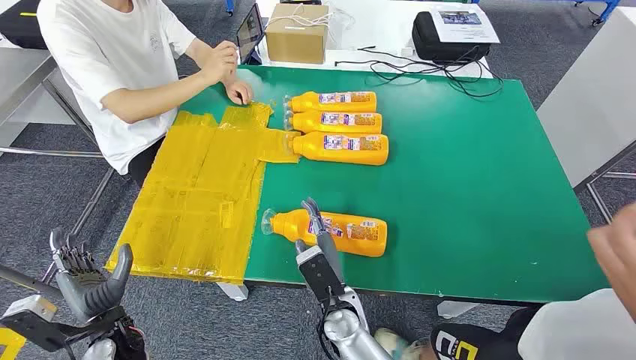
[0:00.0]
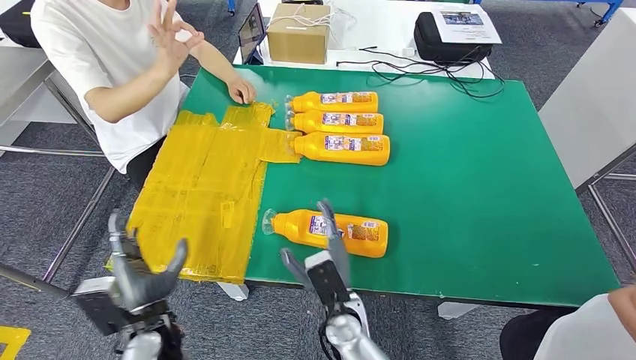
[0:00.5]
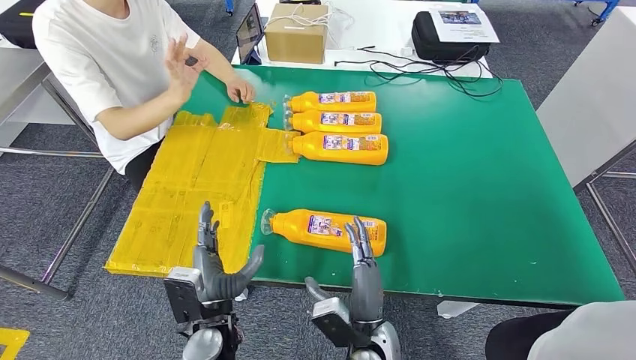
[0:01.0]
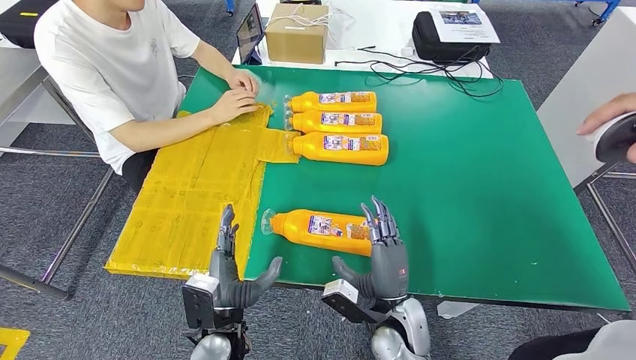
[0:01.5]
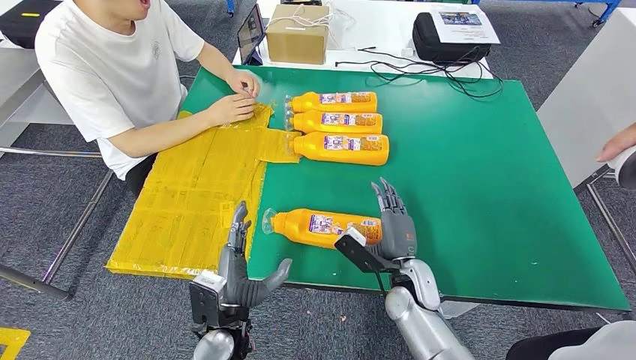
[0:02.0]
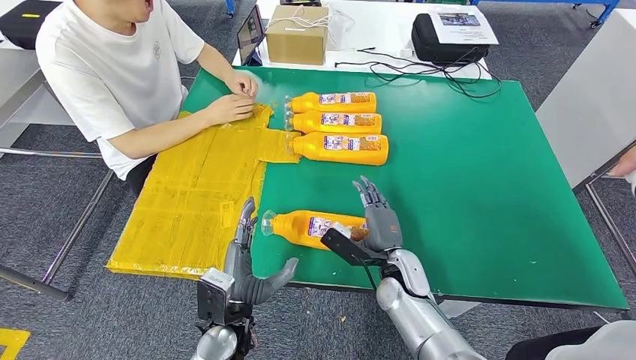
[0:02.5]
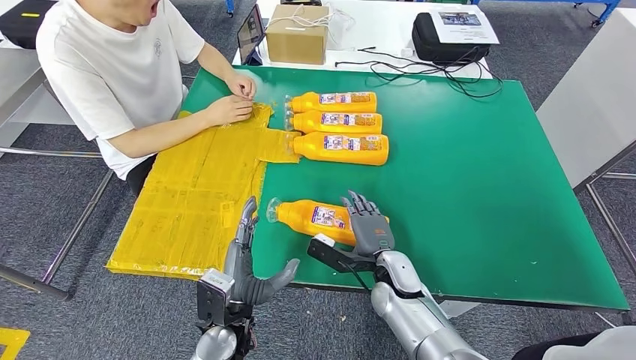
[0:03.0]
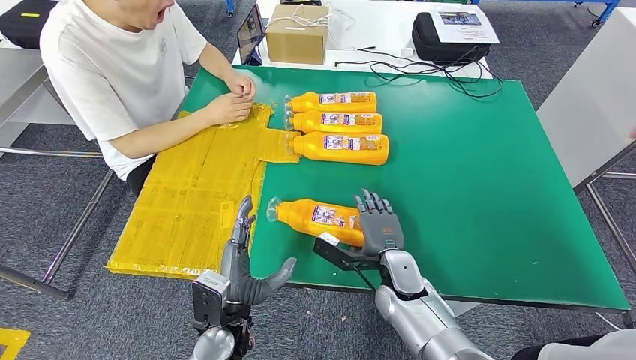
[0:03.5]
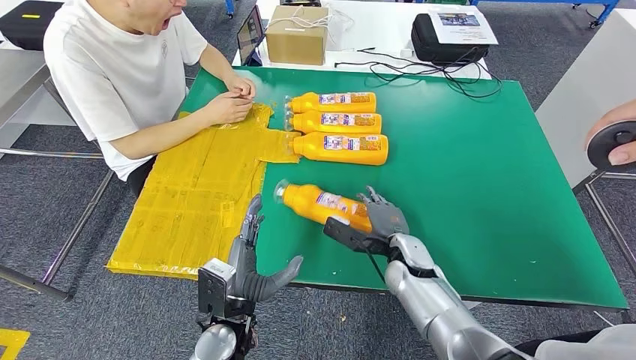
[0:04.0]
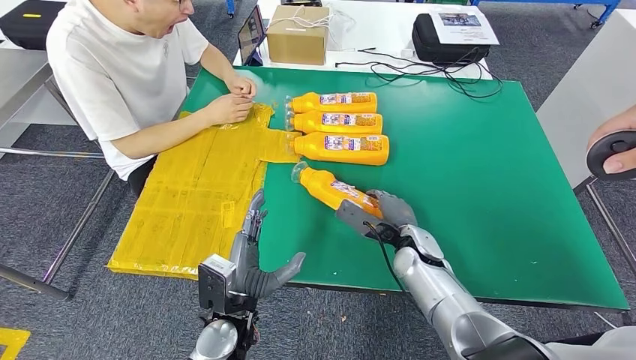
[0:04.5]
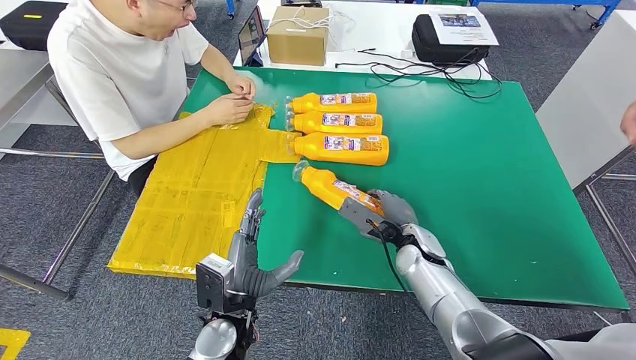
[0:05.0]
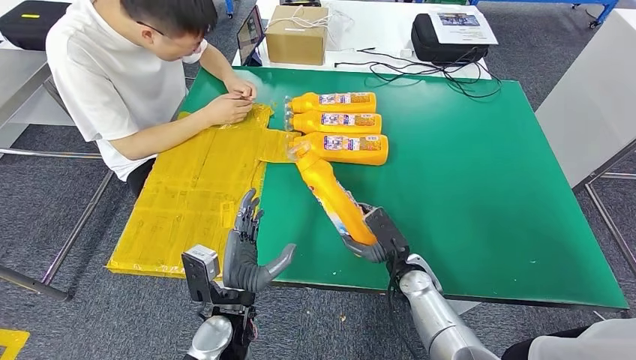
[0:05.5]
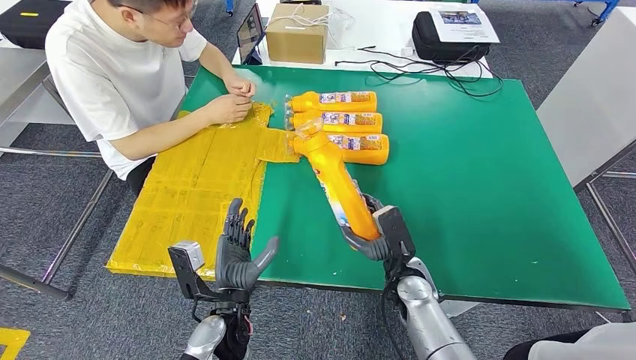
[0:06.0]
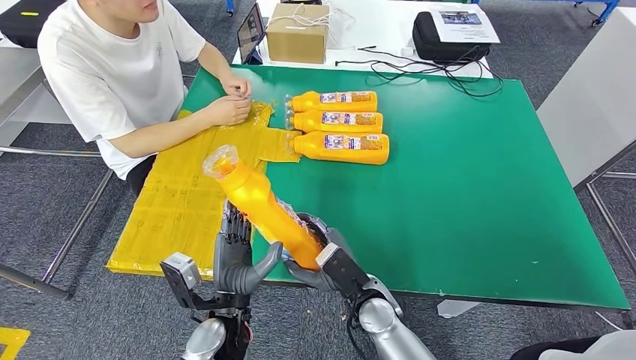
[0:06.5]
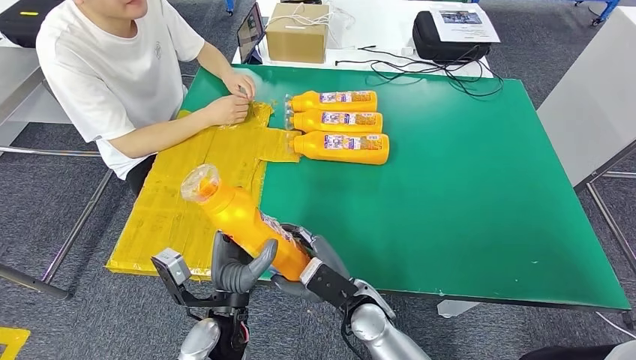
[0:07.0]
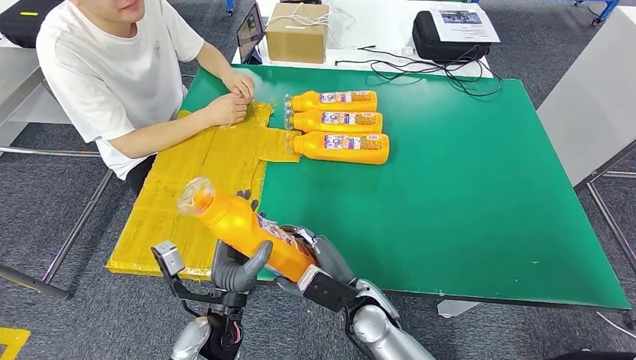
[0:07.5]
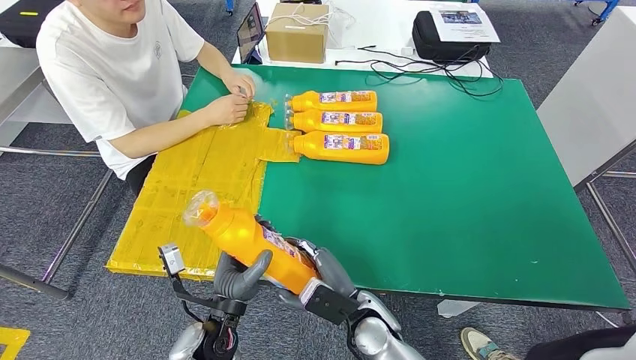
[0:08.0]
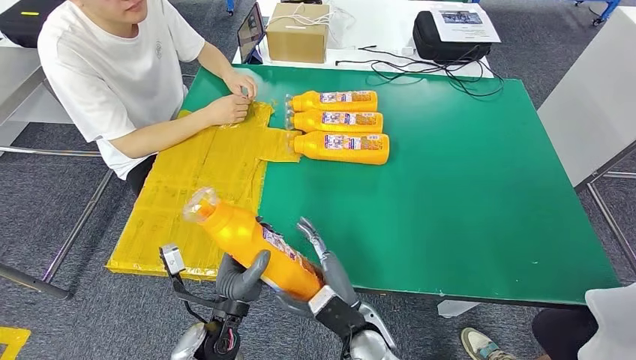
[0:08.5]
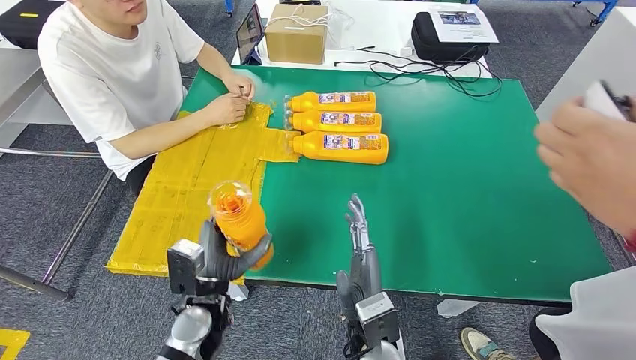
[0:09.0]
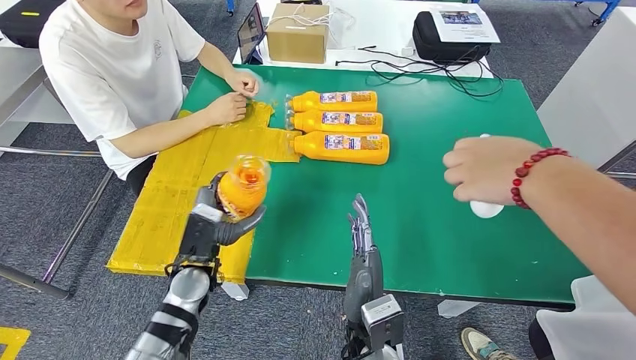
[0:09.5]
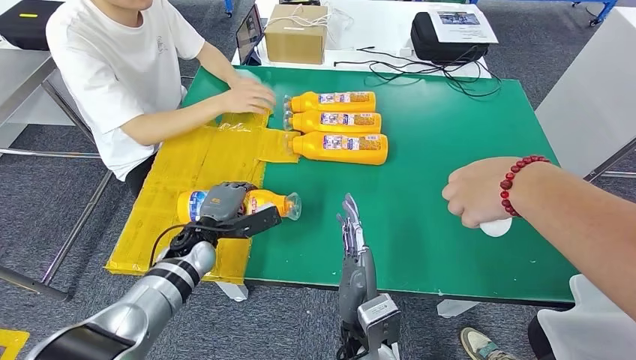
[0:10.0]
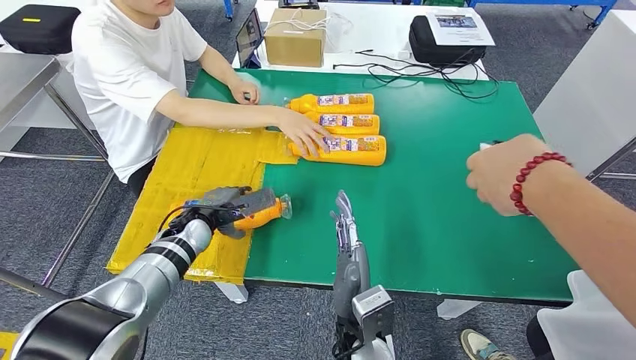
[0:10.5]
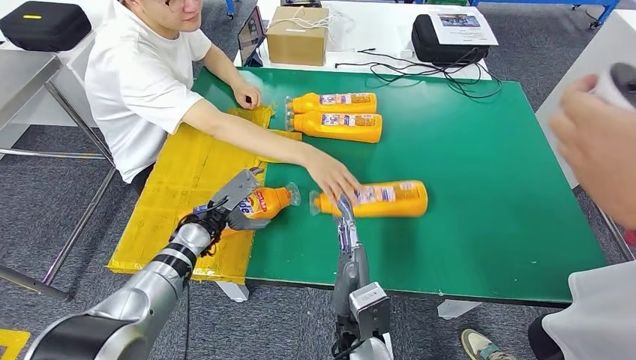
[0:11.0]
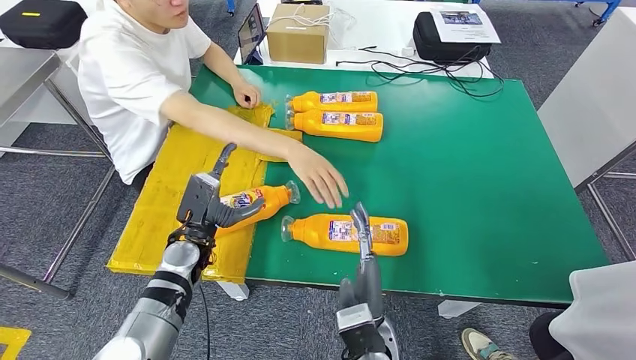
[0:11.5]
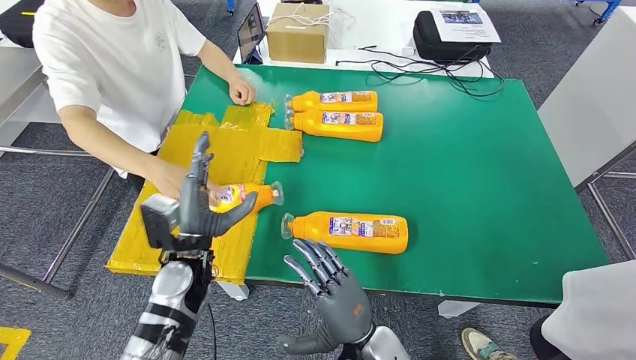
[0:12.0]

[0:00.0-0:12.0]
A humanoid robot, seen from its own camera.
Step, 0:00.0 to 0:07.0: Take the fast-moving consumer goods bottle from the table.
0:06.0 to 0:08.0: The right hand moves to the left and backward, roughly 10 cm.

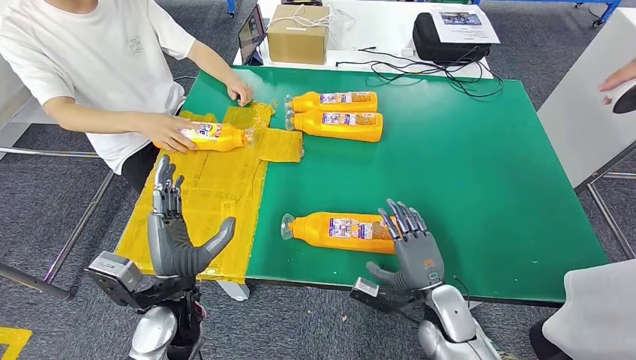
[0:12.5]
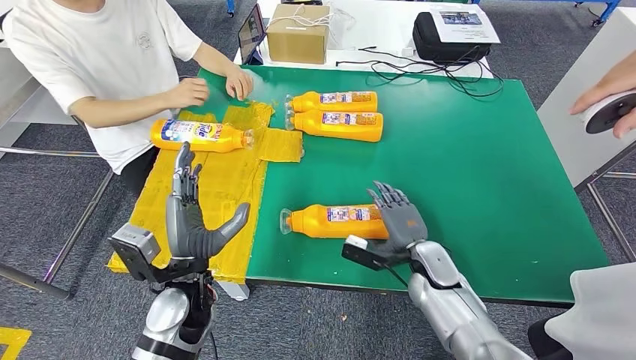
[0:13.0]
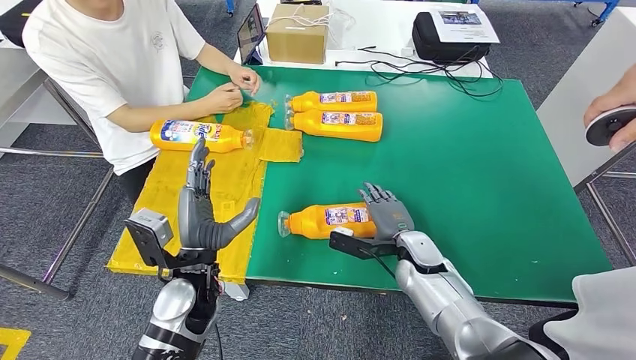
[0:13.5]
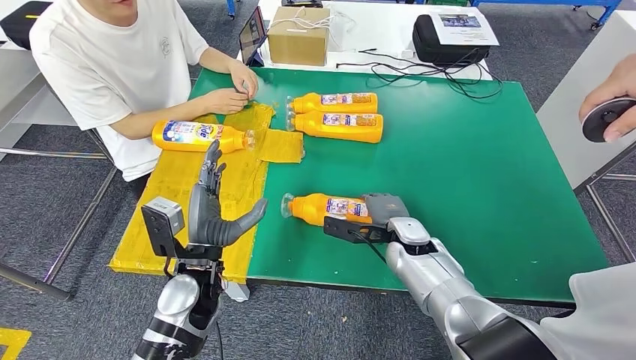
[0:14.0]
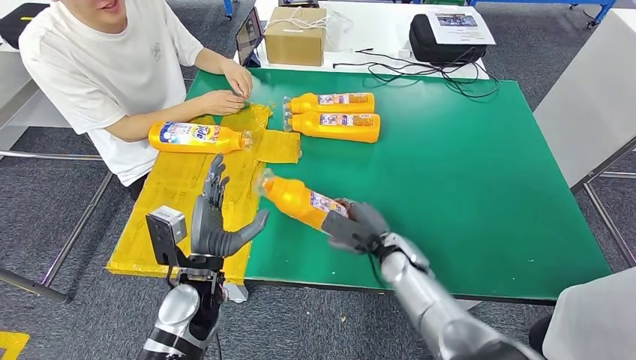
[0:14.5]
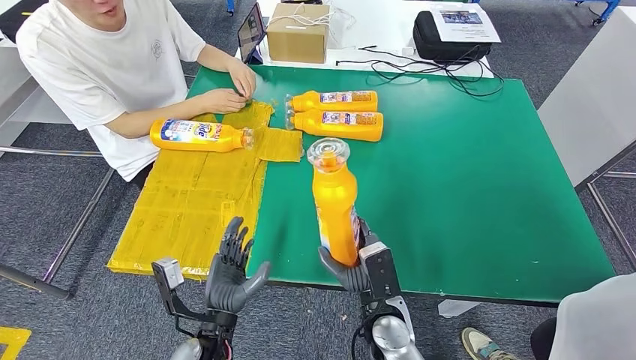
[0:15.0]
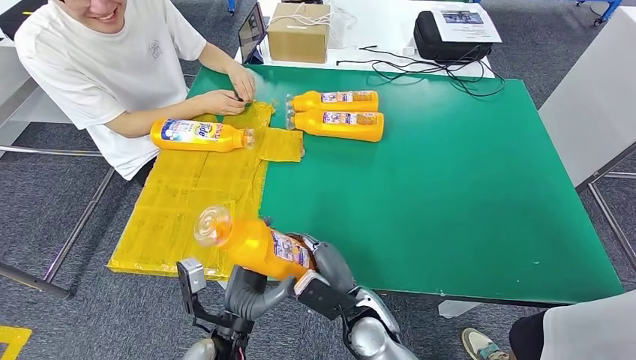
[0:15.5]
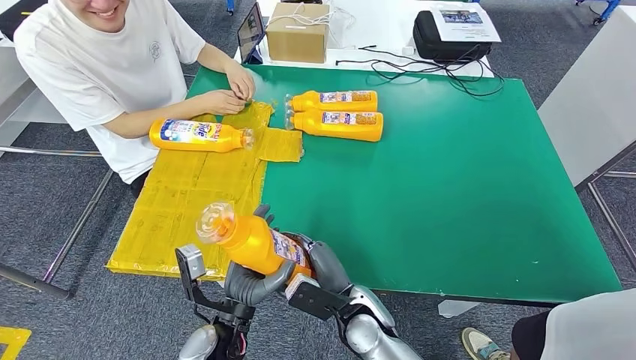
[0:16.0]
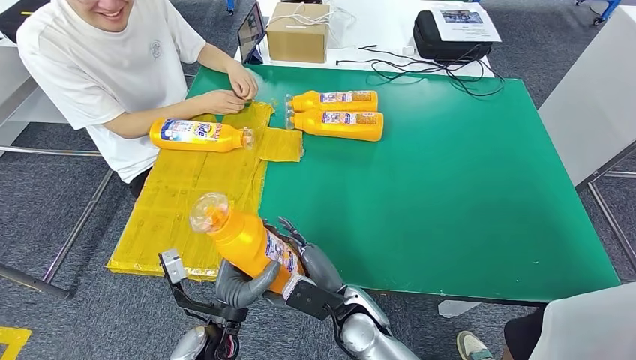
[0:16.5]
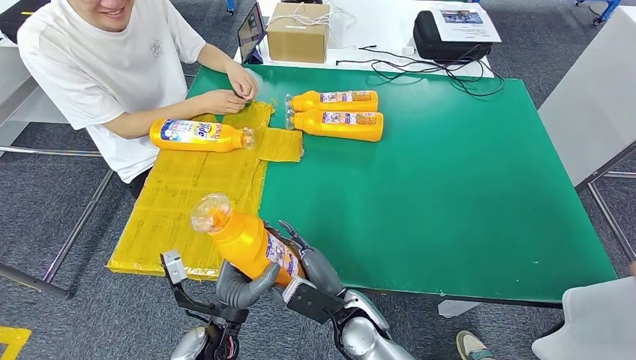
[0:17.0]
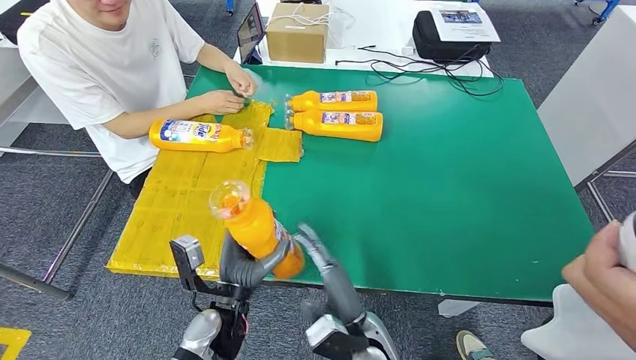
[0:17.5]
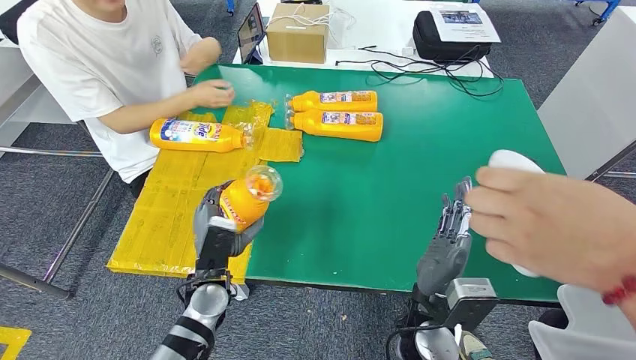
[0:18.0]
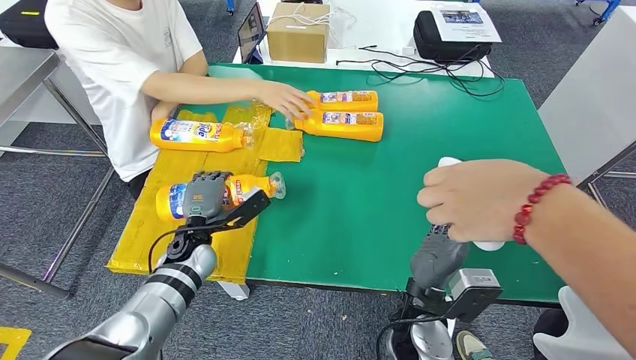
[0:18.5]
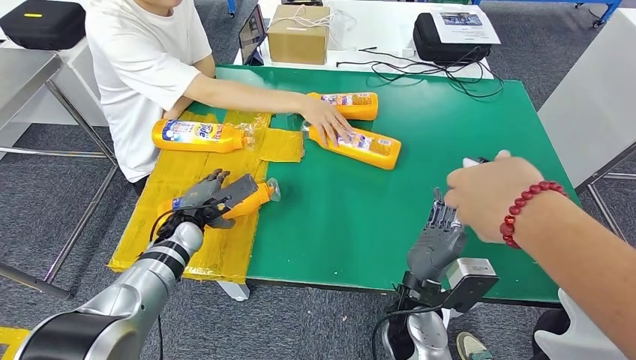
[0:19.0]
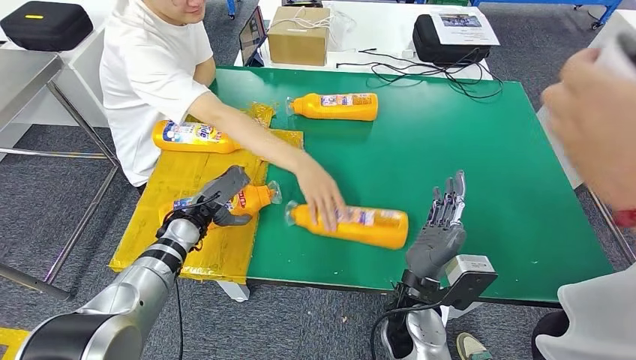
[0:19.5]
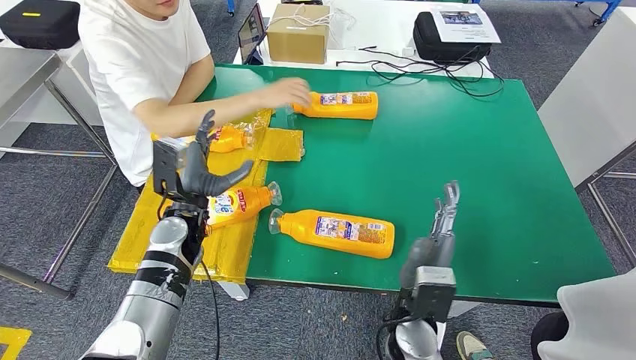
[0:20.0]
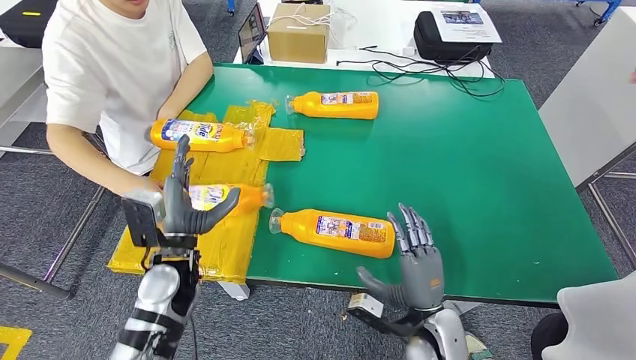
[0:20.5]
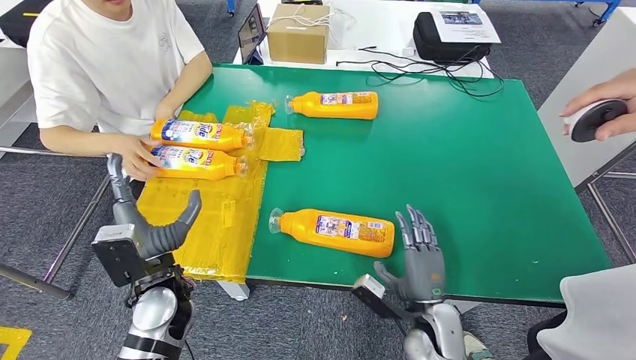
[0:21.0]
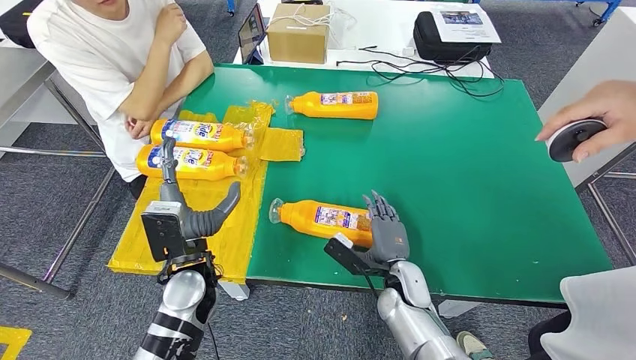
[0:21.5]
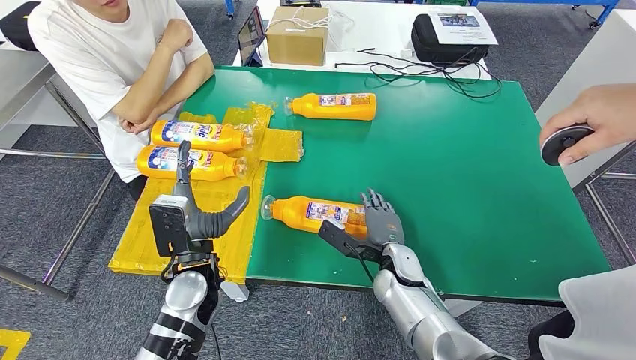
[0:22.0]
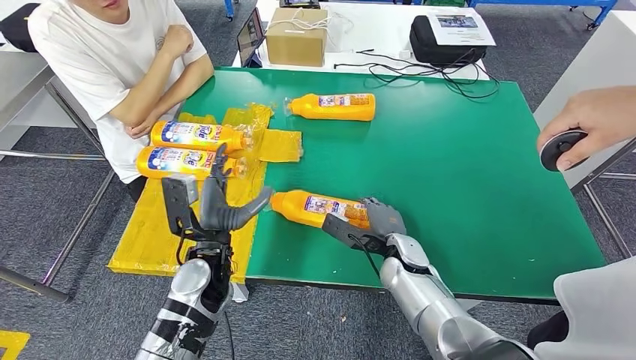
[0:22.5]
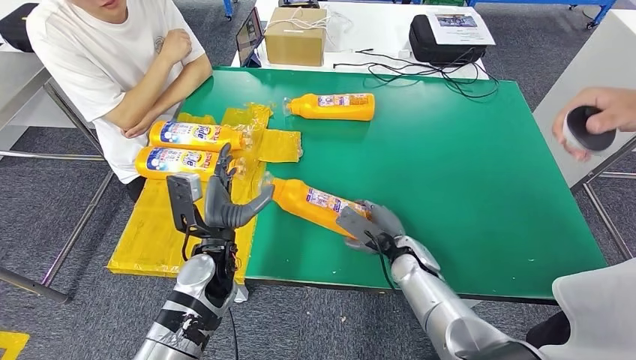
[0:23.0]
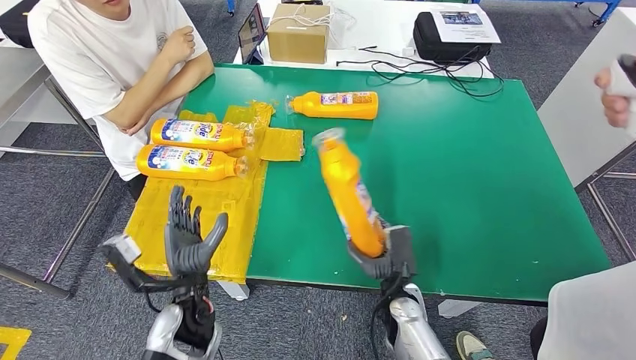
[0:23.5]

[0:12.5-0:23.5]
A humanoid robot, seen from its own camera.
Step, 0:13.0 to 0:15.5: Pick up the fast-moving consumer goods bottle from the table.
Step, 0:16.0 to 0:20.5: Flip the fast-moving consumer goods bottle to the front side.
0:21.5 to 0:23.5: The left hand moves about 5 cm.
